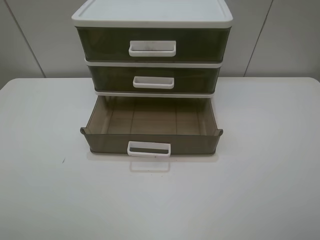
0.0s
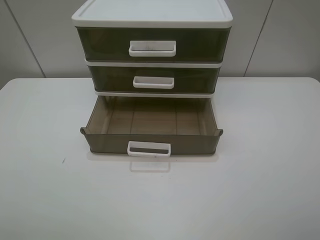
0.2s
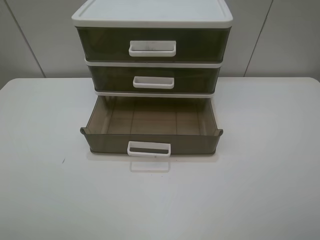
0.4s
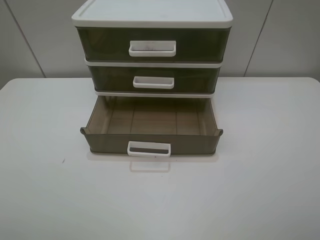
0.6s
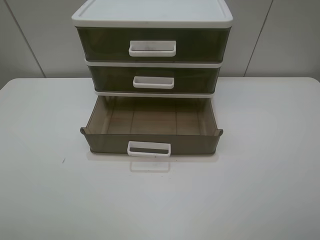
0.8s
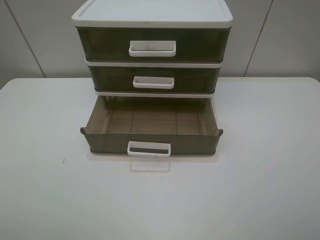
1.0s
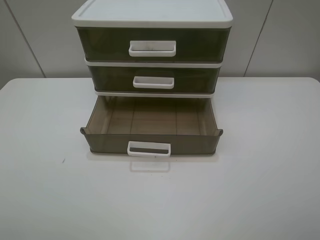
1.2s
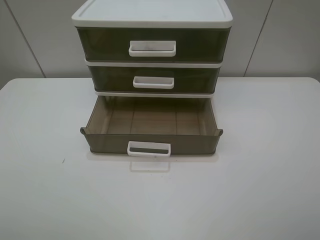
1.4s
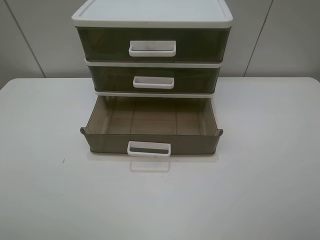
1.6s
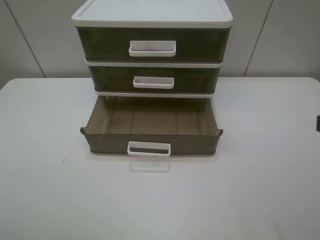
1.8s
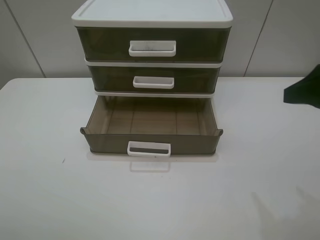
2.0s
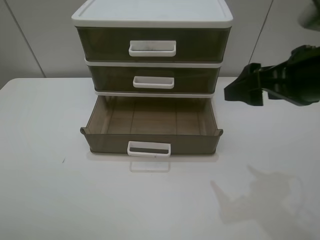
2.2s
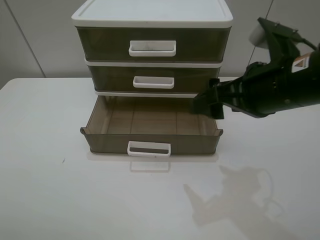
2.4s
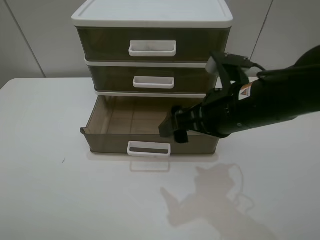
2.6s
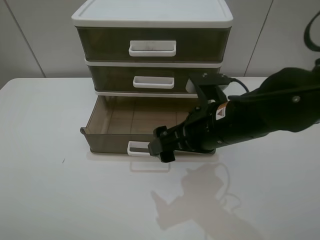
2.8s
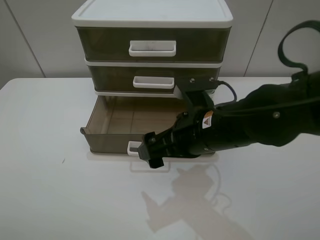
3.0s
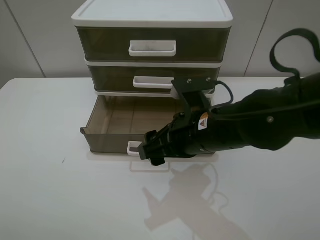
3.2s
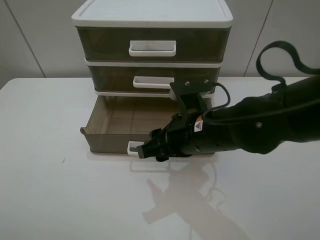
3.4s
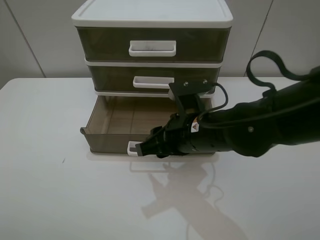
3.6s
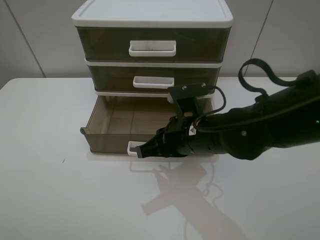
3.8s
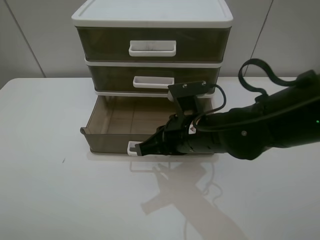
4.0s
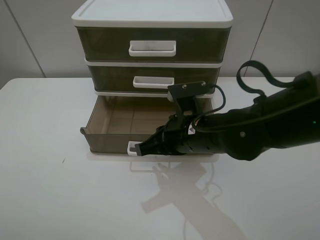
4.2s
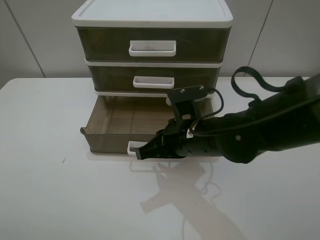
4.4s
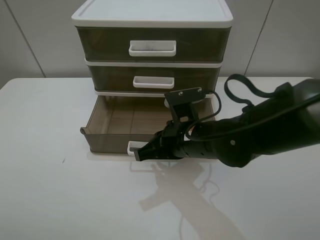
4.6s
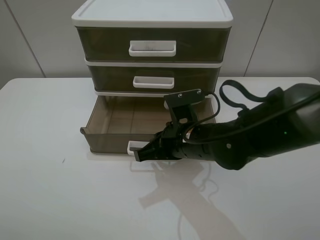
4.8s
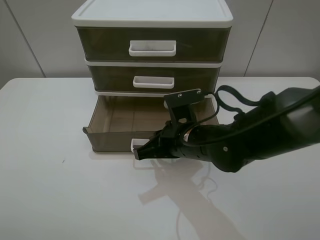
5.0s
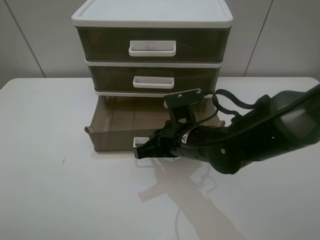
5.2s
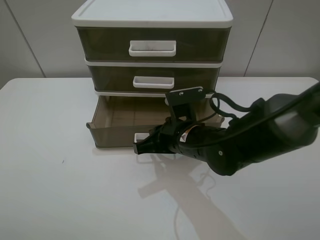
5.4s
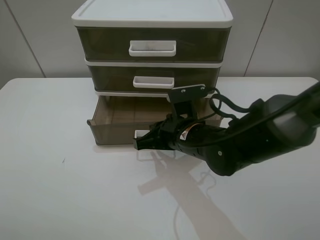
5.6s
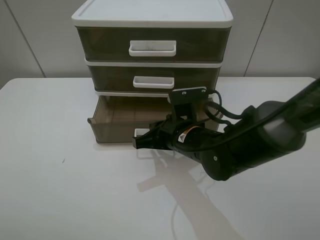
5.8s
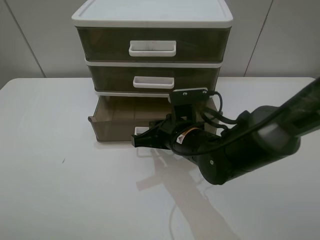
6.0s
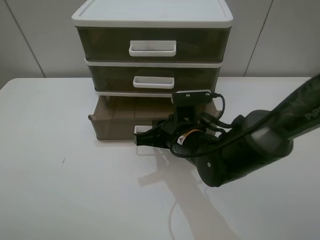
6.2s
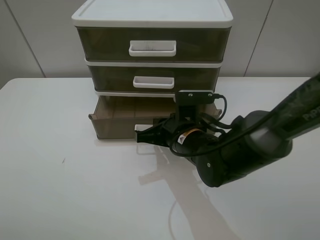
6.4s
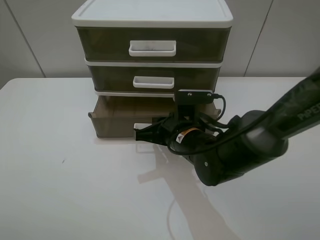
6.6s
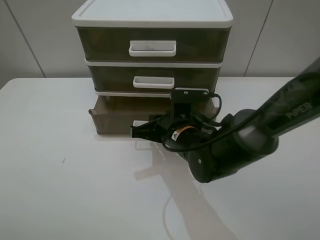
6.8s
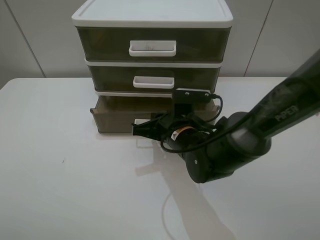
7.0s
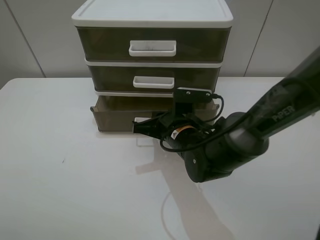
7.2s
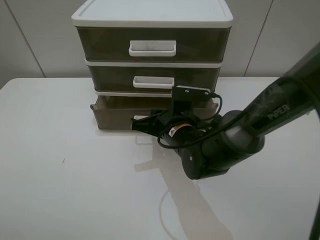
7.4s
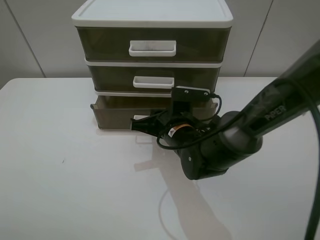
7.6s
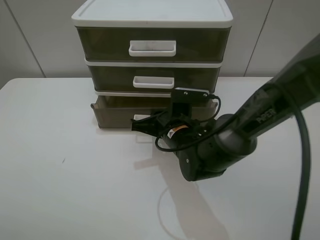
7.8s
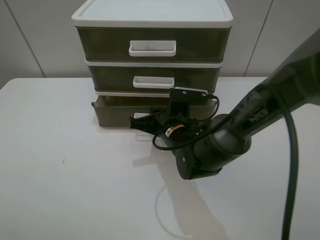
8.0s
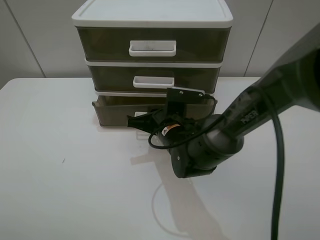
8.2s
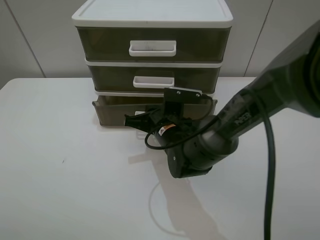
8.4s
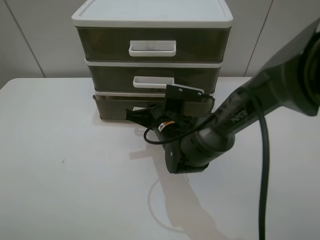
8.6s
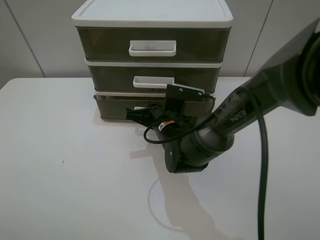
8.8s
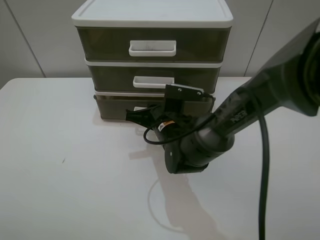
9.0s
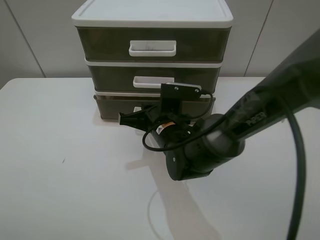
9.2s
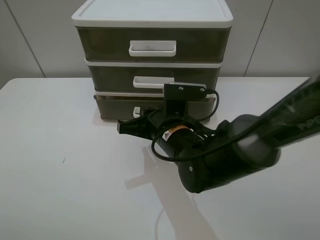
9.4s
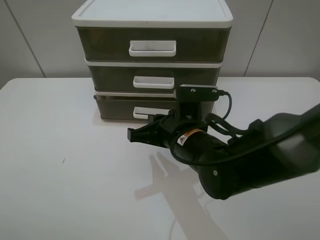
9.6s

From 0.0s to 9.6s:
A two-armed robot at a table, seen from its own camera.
Task of the whole recording: close the bottom drawer.
Step, from 0.0s to 4.4s: Use the right gripper to contact the bottom layer of the storage cabinet.
Step, from 4.6s to 9.0s: Push the bottom drawer closed.
From 1.6s to 3.2s: The right gripper travels to the left, forward and downward by some 30 cm.
From 3.2s to 4.8s: The right gripper goes about 5 cm downward, and closes its fingers.
From 6.4s to 8.0s: The grippers move only a little.
From 8.0s to 9.6s: The right gripper travels backward and upward by about 10 cm.

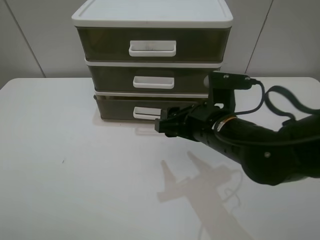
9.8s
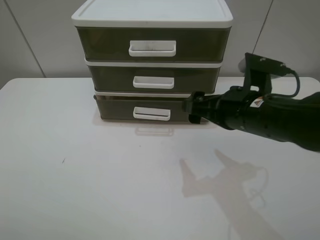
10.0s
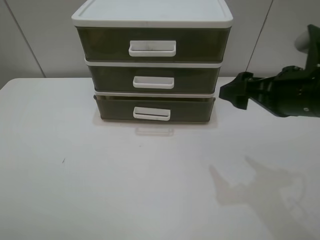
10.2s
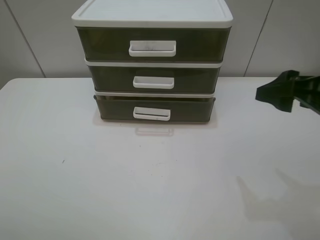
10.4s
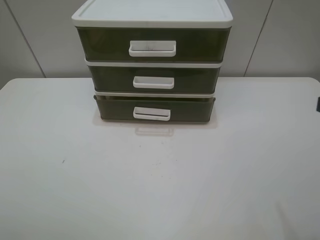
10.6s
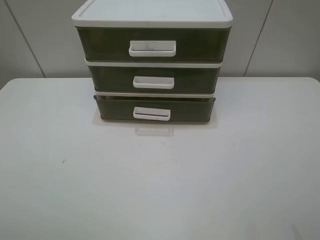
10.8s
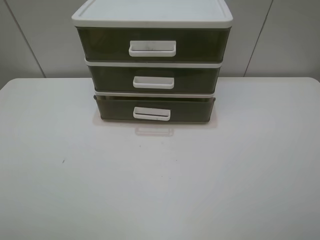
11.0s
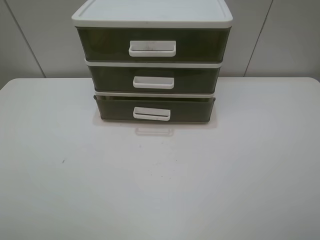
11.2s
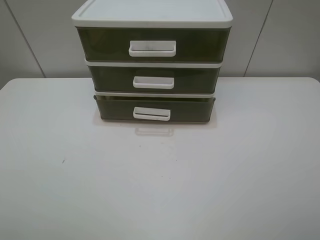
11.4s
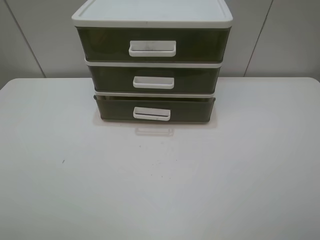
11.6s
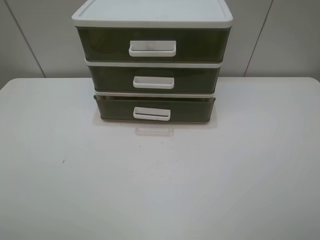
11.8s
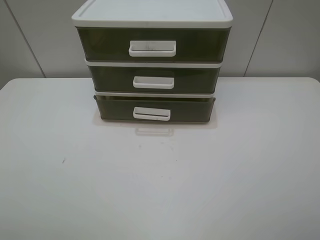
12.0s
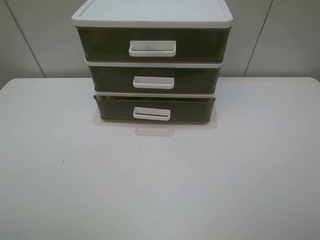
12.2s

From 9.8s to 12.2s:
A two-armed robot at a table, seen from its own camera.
Task of the whole recording: close the bottom drawer.
From 9.8s to 11.0s: The right gripper is displaced backward, to the right and upward by about 30 cm.

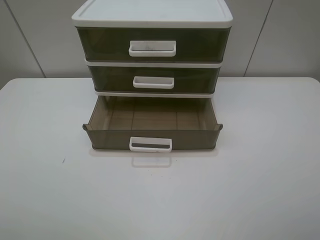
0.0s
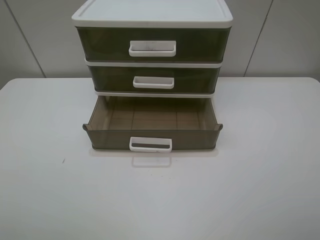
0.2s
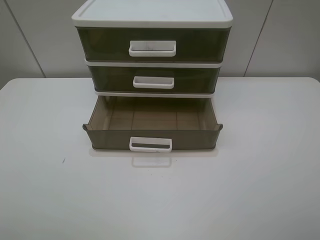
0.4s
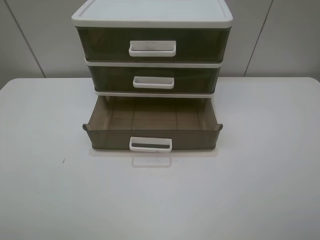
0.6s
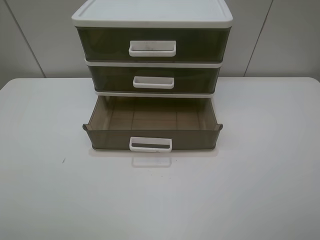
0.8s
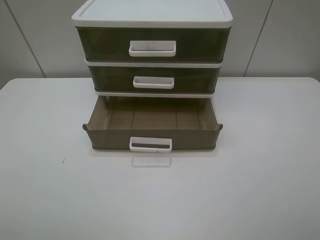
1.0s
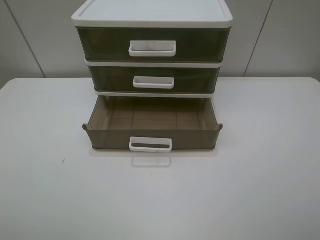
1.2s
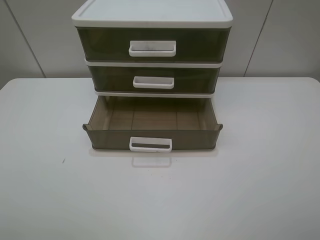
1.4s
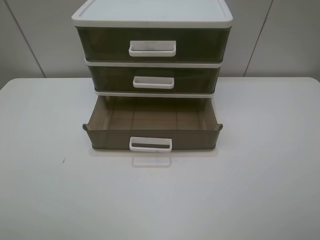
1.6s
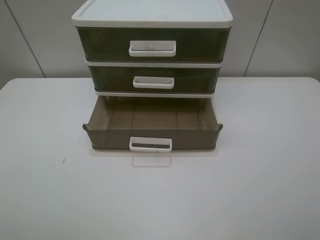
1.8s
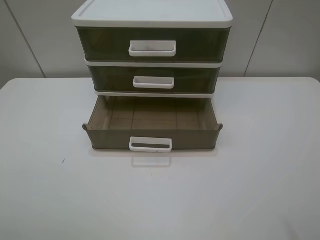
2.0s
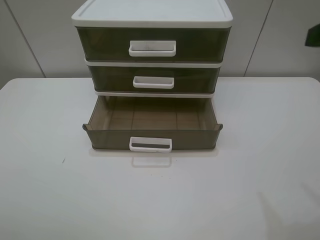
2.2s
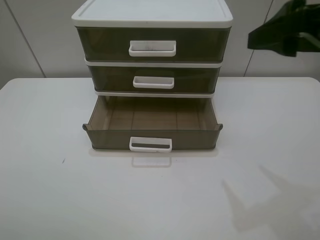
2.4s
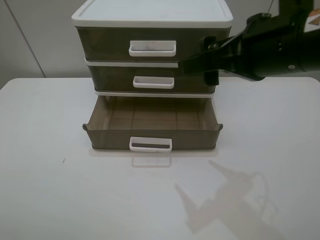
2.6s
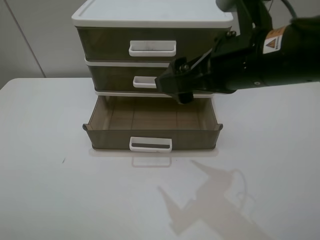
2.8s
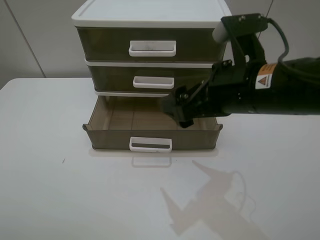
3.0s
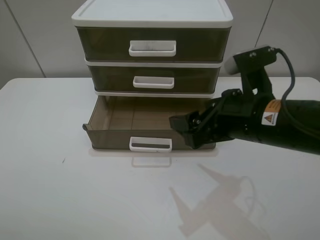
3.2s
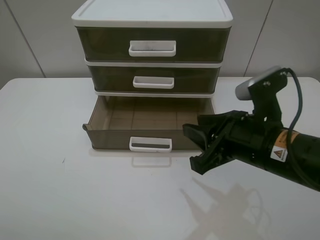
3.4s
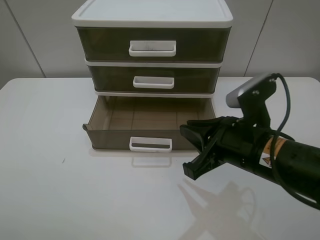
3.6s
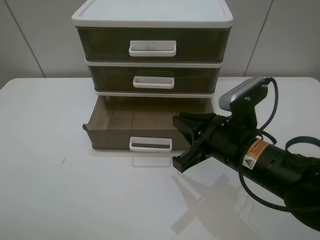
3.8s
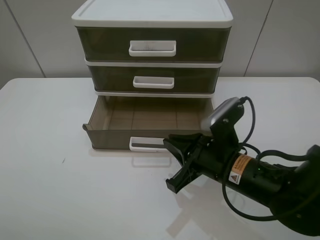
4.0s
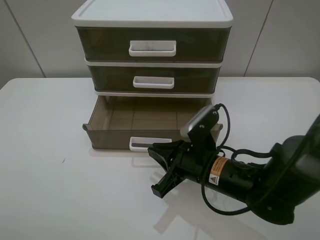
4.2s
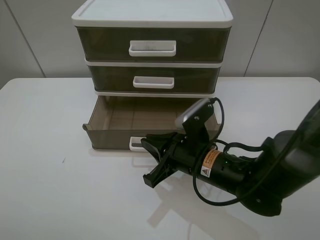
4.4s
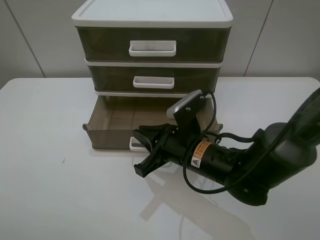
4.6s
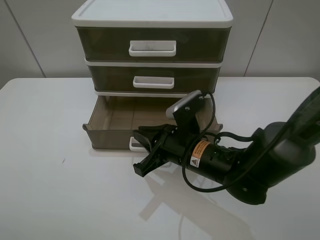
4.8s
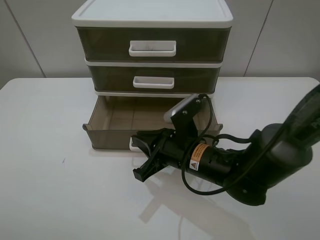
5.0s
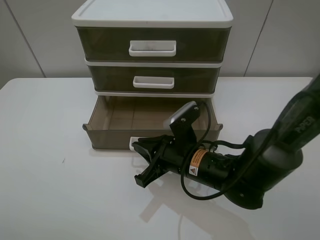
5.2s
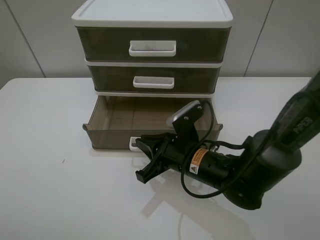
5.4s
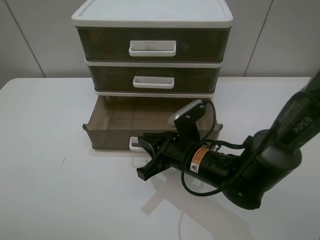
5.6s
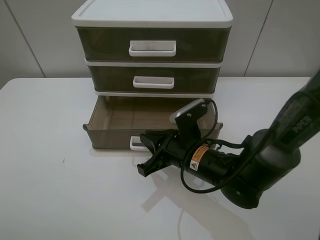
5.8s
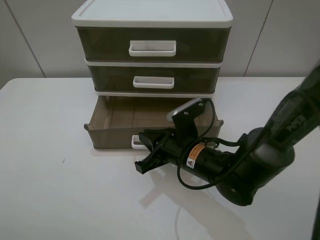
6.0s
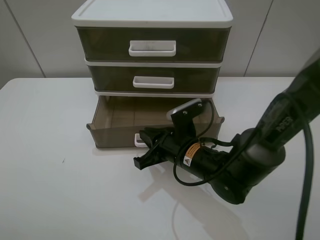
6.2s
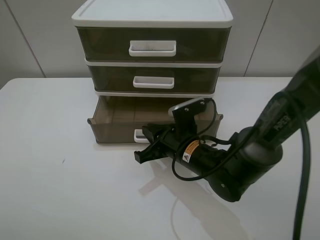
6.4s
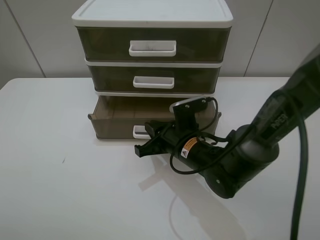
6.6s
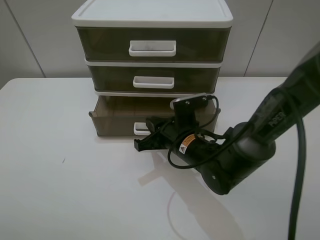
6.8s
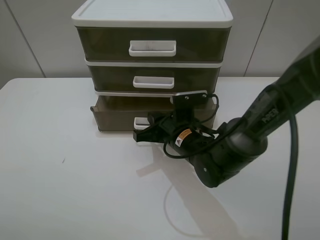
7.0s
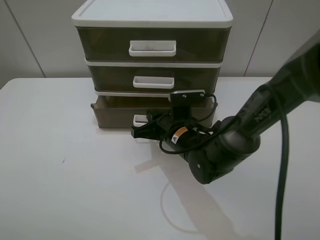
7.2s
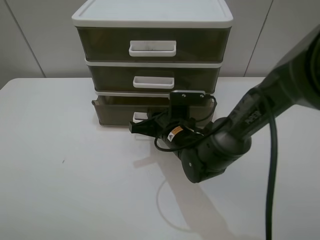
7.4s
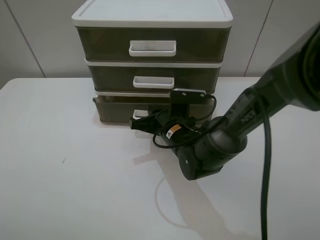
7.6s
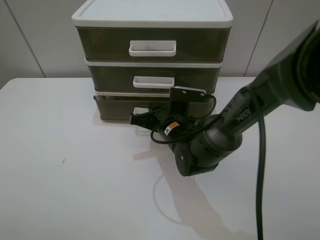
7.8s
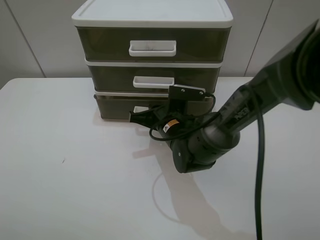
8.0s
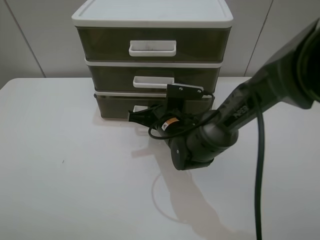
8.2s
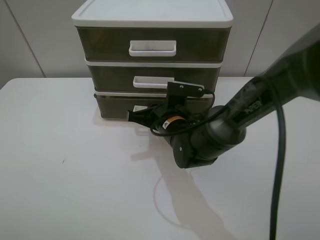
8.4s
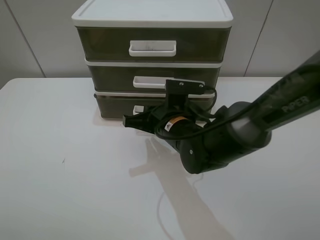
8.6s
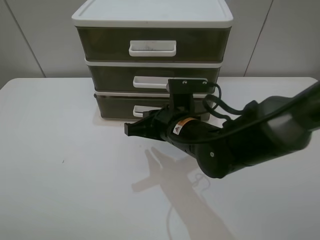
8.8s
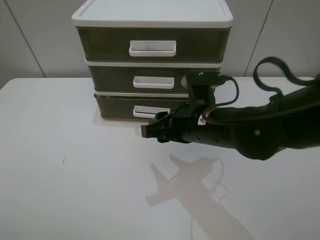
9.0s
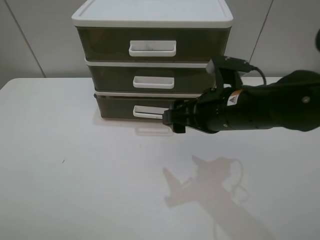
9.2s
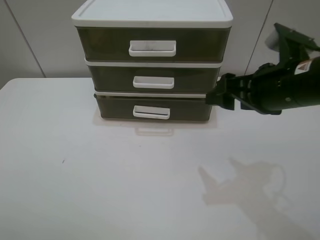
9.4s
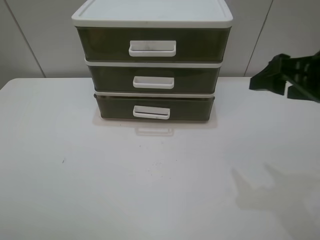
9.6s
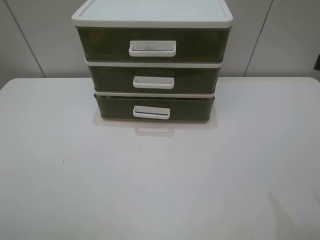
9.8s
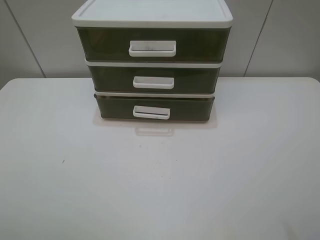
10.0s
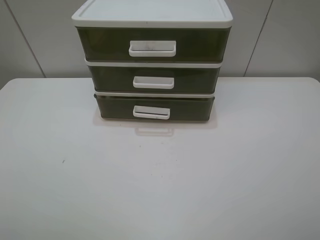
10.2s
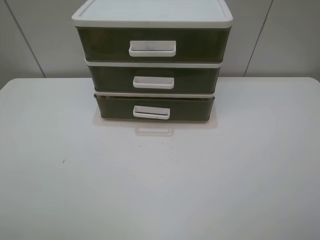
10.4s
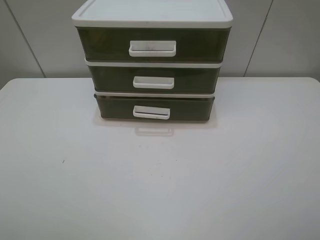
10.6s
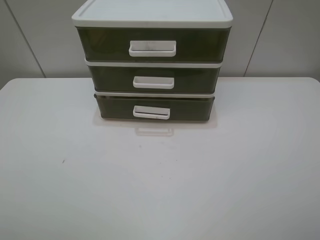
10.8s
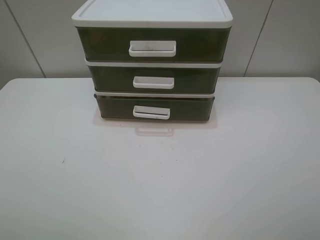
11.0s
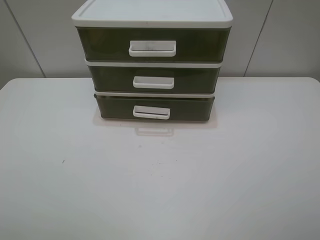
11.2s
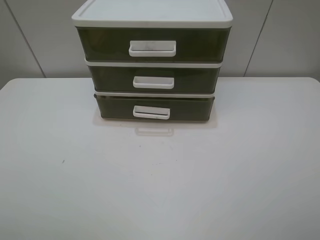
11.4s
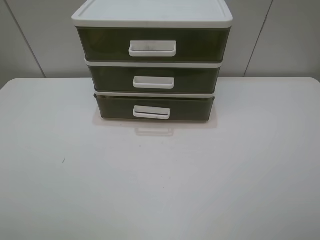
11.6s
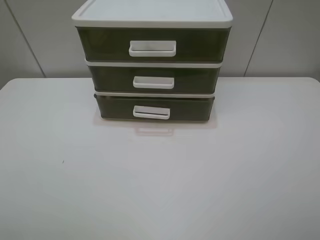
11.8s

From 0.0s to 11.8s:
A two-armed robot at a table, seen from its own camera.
Task of the whole recording: close the bottom drawer.
Step, from 0.0s to 5.8s: Use the right gripper to contact the bottom layer of the storage cabinet.
Step, from 6.0s to 8.0s: Push the bottom drawer closed.
From 0.0s to 1.4s: The two grippers keep their place.
From 1.4s to 3.0s: The right gripper shifts roughly 25 cm forward and to the left.
From 3.0s to 4.4s: The right gripper goes some 15 cm downward, and closes its fingers.
From 4.4s to 6.0s: The grippers make only small movements.
From 6.0s to 7.4s: The right gripper moves forward, some 5 cm.
From 7.4s to 8.8s: The right gripper travels upward by roughly 5 cm.
From 8.8s to 10.4s: The right gripper travels backward, to the right and upward by roughly 40 cm, and opens up.
